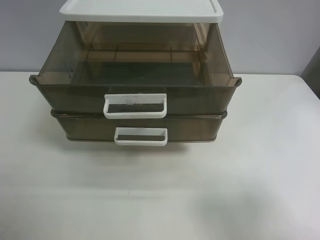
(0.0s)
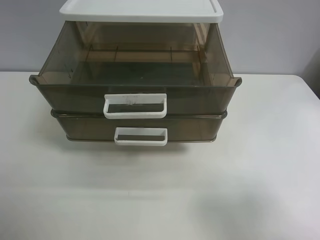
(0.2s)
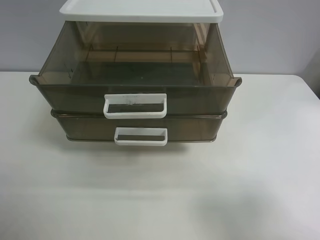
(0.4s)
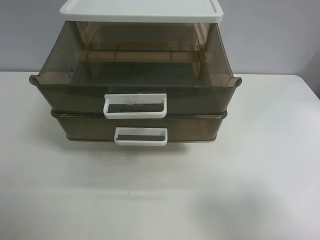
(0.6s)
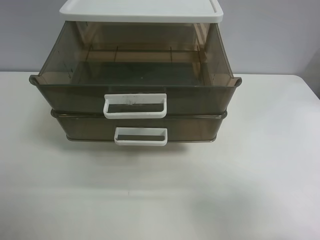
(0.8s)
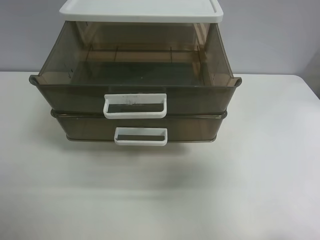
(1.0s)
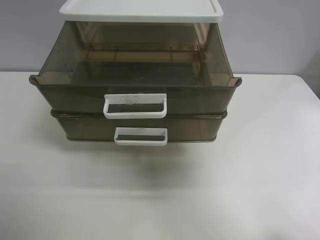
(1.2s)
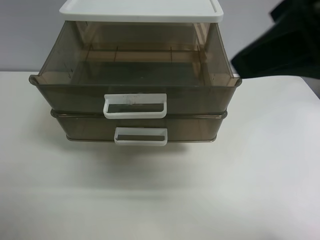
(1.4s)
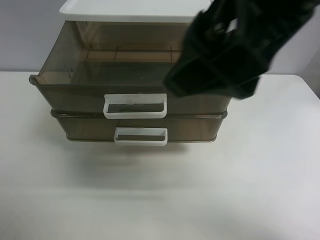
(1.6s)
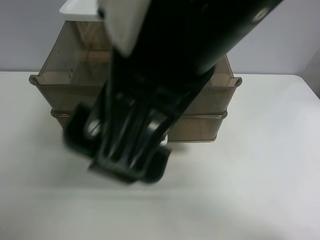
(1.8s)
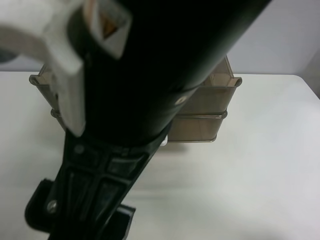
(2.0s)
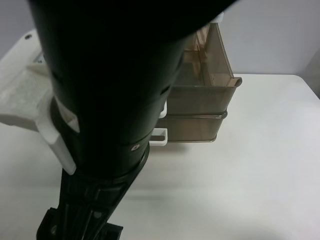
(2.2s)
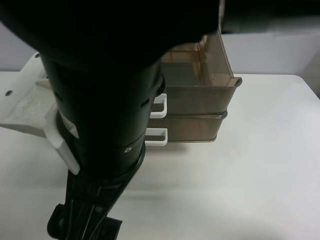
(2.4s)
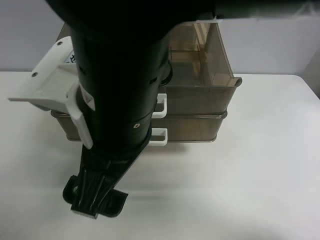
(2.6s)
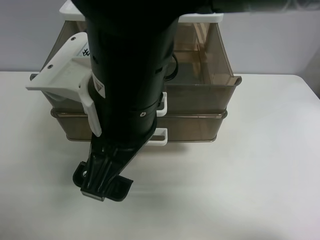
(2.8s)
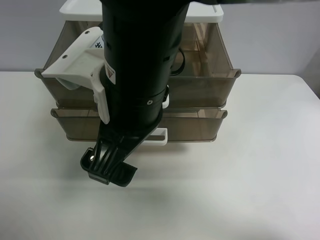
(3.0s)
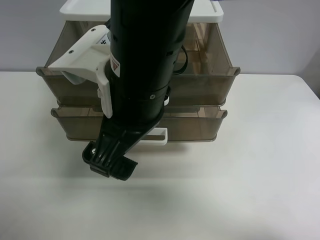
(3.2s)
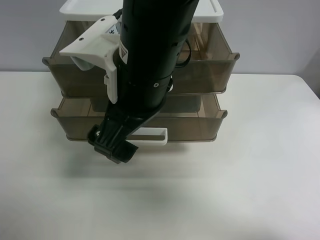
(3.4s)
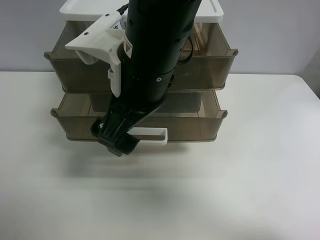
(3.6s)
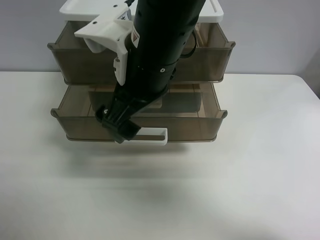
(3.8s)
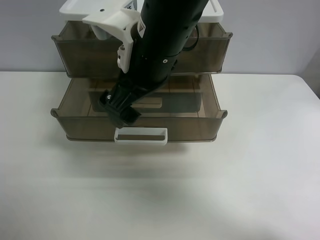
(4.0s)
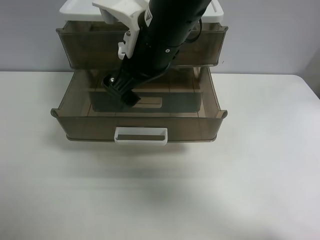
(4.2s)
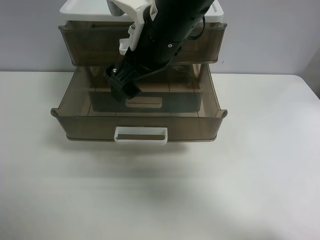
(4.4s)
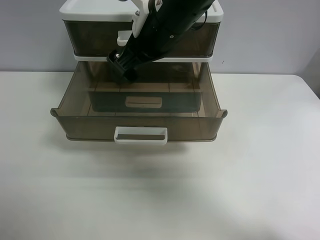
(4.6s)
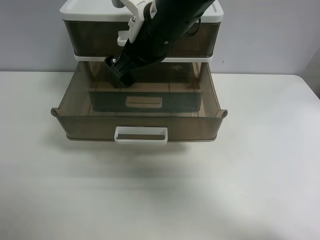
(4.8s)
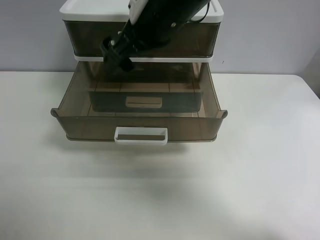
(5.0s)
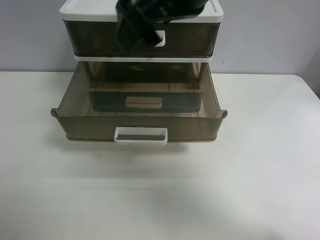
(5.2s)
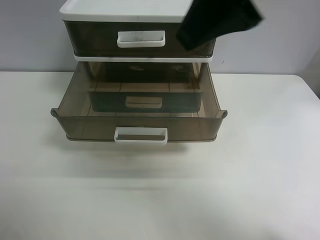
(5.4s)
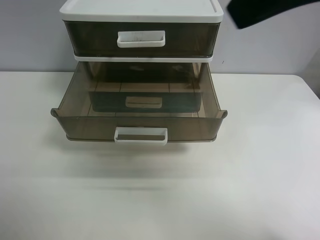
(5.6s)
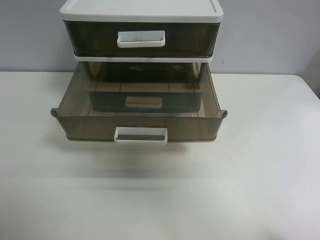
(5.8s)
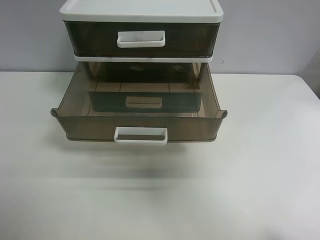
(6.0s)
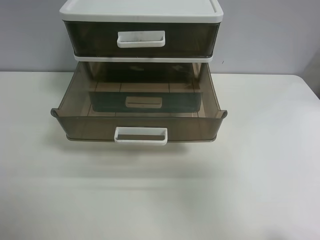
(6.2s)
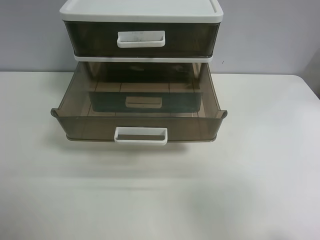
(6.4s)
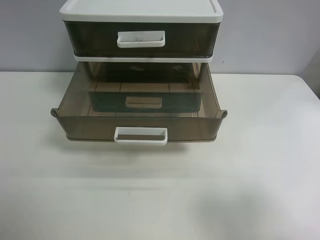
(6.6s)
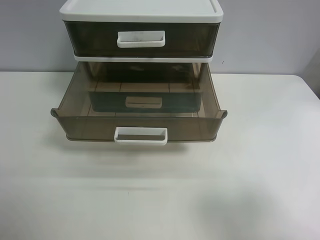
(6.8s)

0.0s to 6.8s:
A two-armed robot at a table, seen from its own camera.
Task of the whole recording: close the top drawer.
Step, 0.0s to 2.6s: Use the right gripper to touch the topmost layer of the storage cabinet.
Step, 2.8s to 4.8s: Push the top drawer closed.
0.0s to 1.4s: The right gripper moves to the left, upward and forward, approximately 25 cm.
1.4s to 2.8s: The right gripper is displaced to the left and downward by some 20 cm.
2.8s to 4.0s: The right gripper heads forward, covering roughly 10 cm.
4.0s to 5.4s: The right gripper goes approximately 20 cm upward, to the right and backward.
5.4s to 6.8s: The right gripper heads backward, to the right and downward, covering approximately 30 cm.
